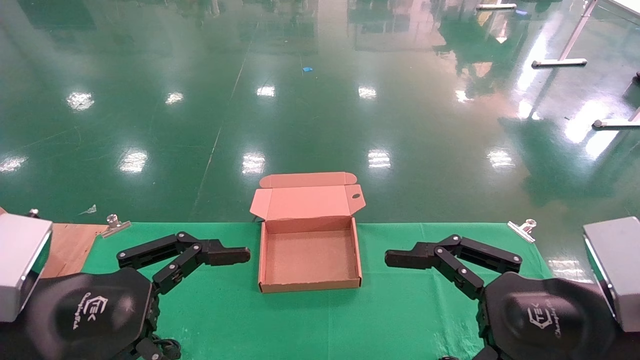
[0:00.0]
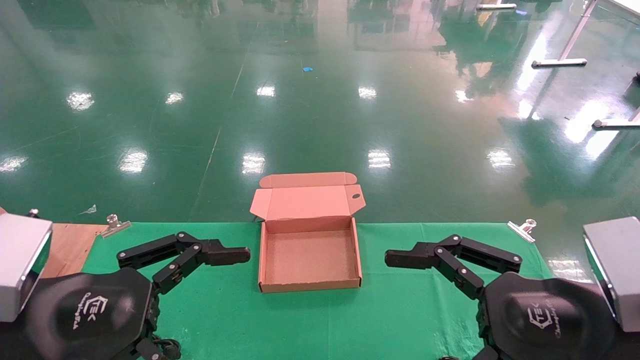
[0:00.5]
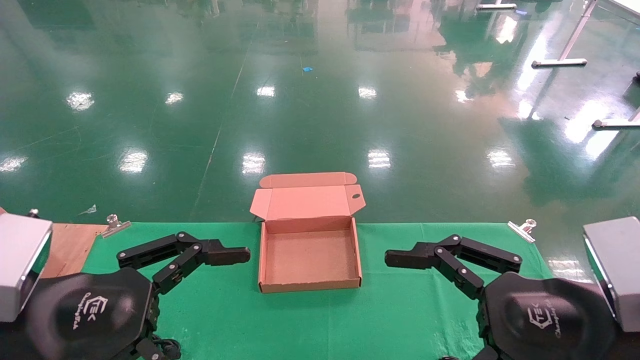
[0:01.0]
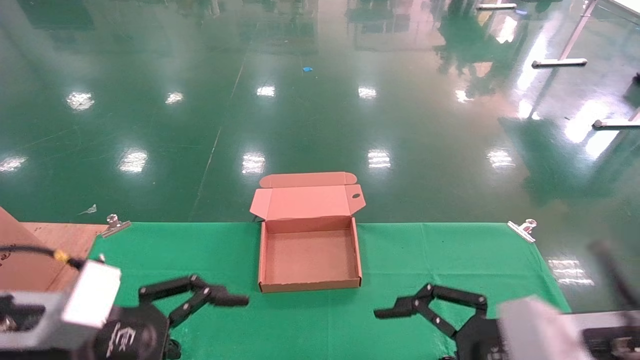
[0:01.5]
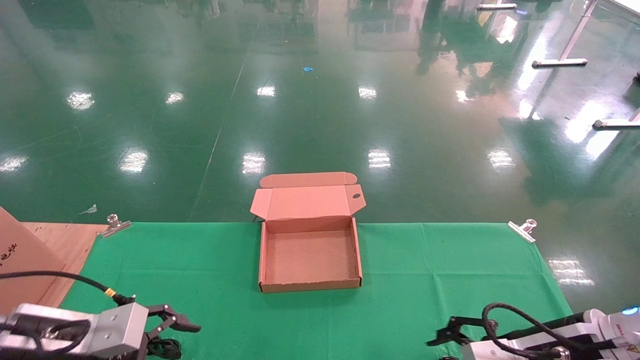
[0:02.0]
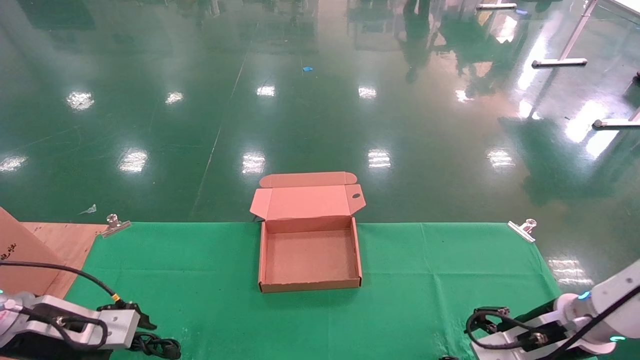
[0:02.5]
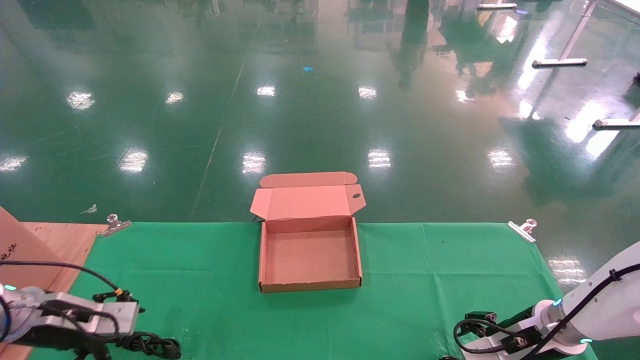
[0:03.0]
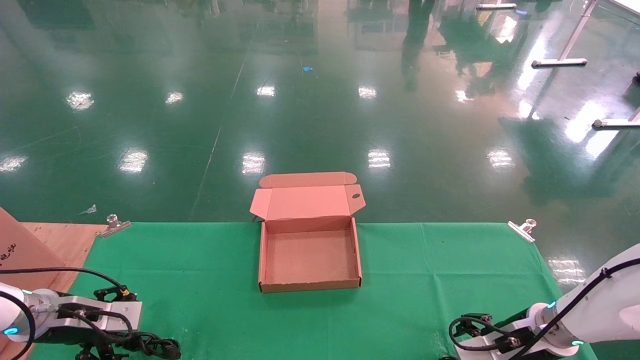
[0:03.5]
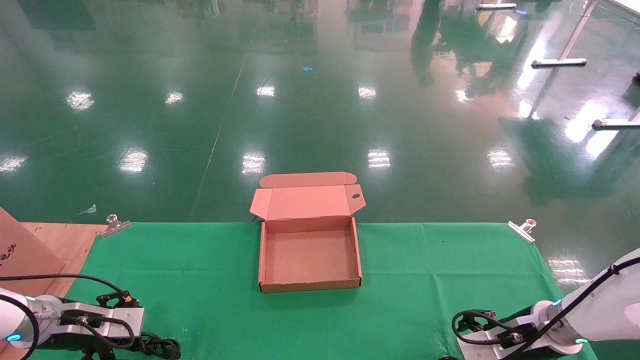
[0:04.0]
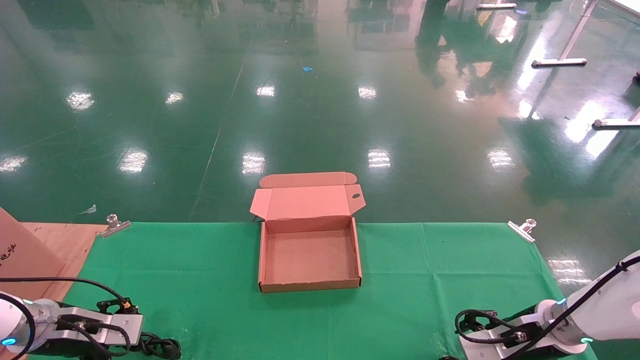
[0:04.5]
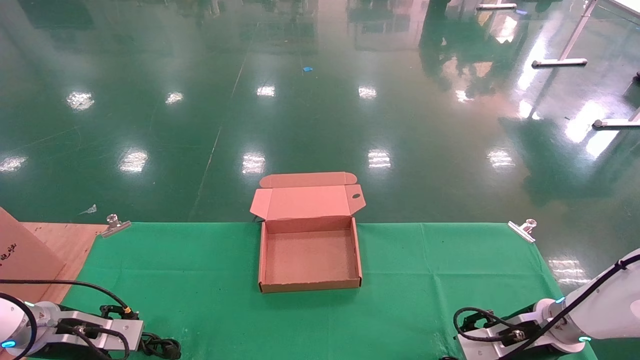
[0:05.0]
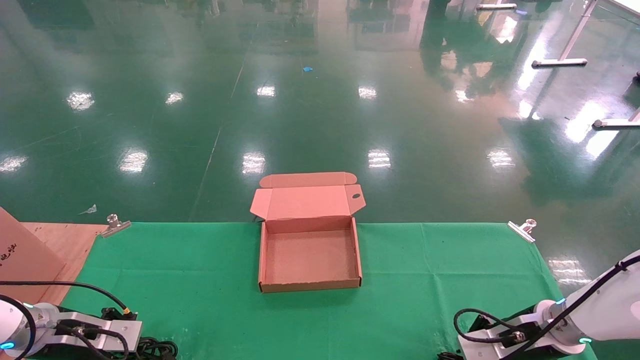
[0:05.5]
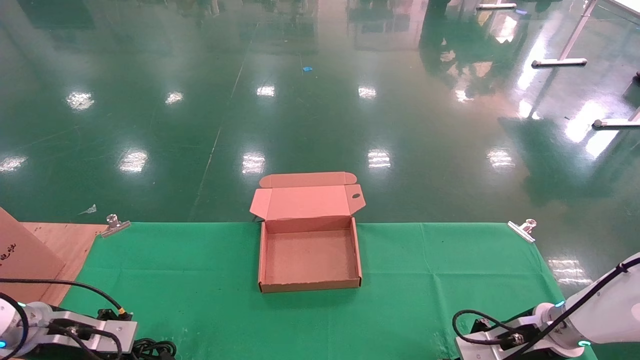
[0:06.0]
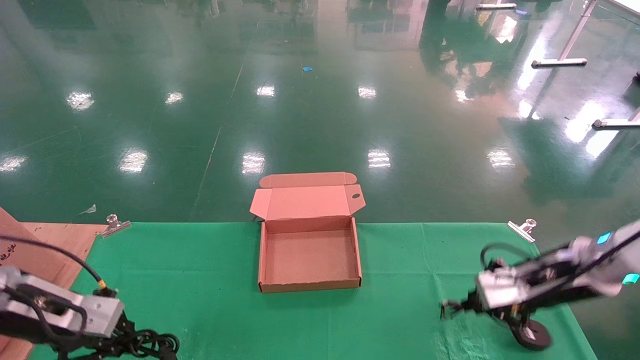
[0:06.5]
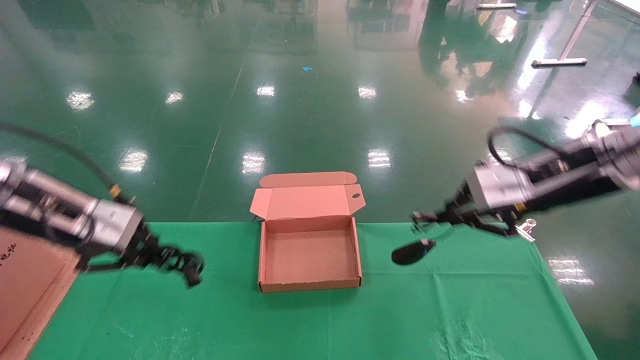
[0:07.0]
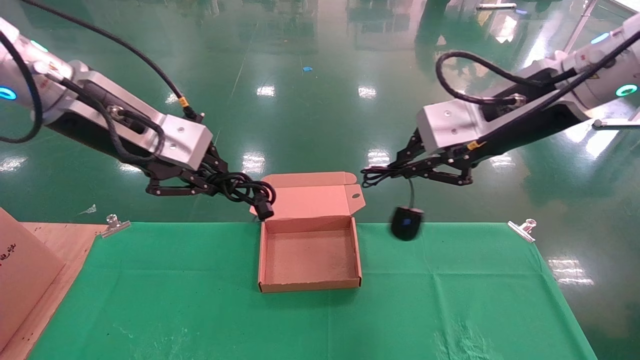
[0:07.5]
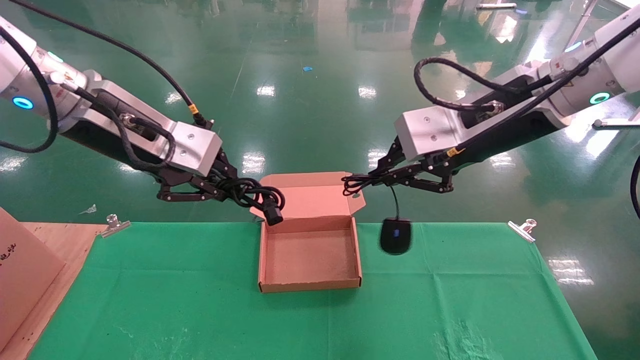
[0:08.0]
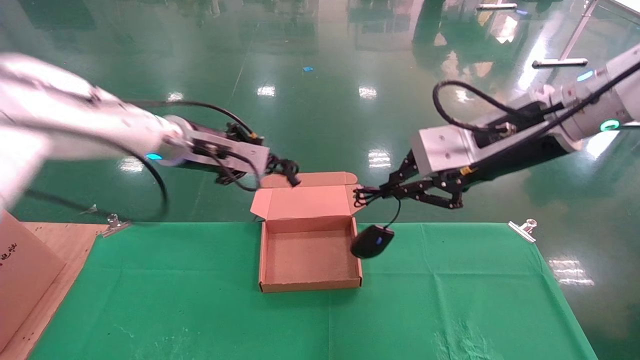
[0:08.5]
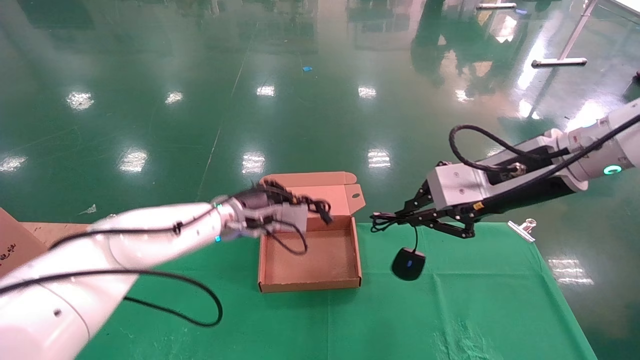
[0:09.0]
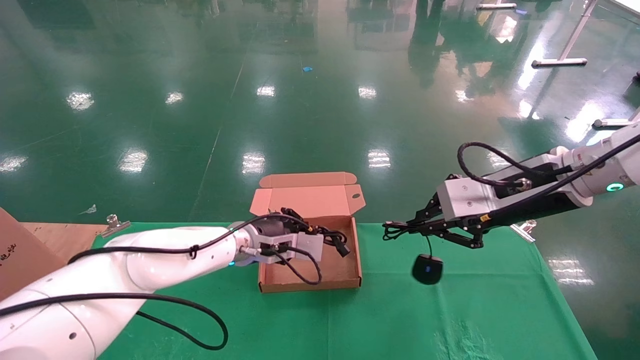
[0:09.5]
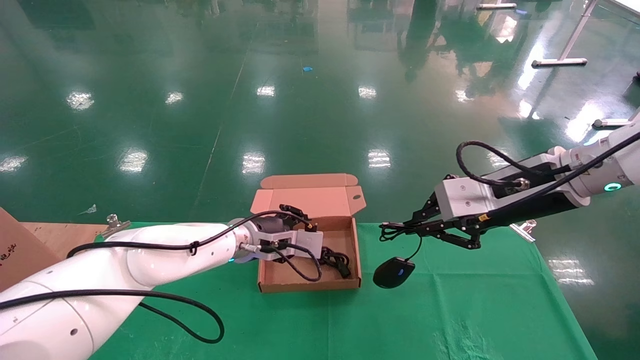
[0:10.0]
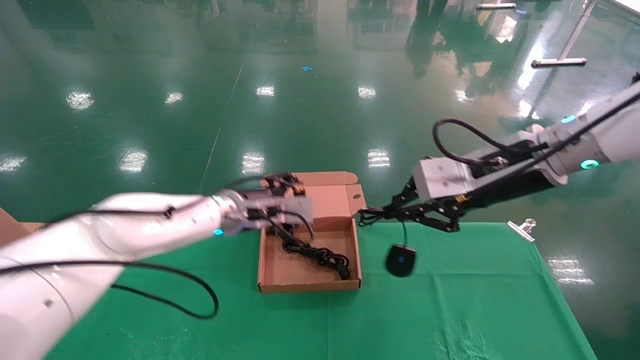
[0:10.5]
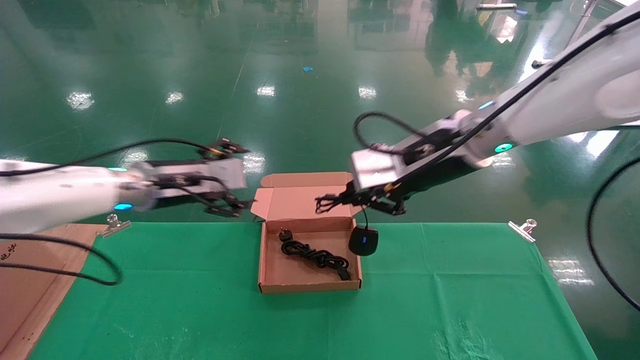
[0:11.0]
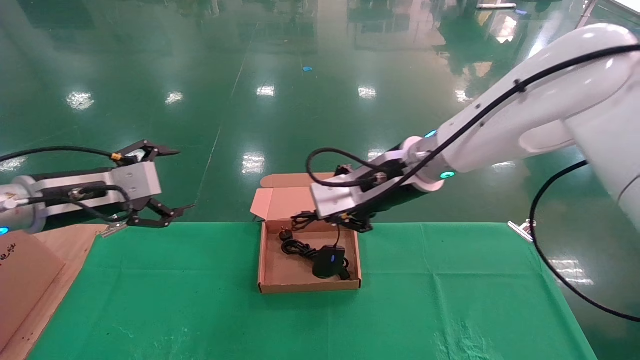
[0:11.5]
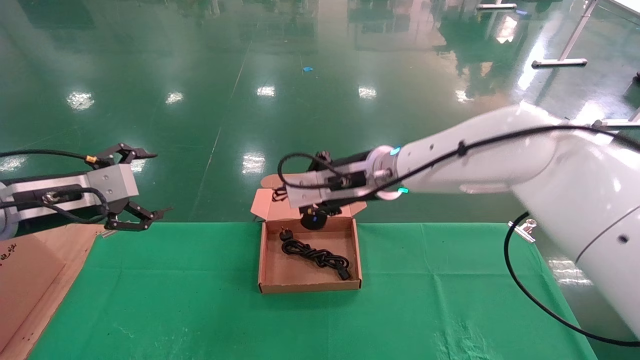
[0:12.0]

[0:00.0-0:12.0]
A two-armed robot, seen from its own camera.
Step, 0:02.0 to 0:06.0: Grab and lift both the mouse and power cord from the accessory packaging area at the same time.
0:00.0 to 0:02.0: The left gripper heads forward, downward and to the left, covering about 15 cm, while the right gripper heads forward and downward, covering about 15 cm.
0:02.0 to 0:04.0: The right gripper shifts about 15 cm forward and downward; the left gripper is displaced forward, to the left and downward by approximately 15 cm.
0:04.0 to 0:06.0: The left gripper closes its fingers; the right gripper closes up.
0:06.0 to 0:08.0: The left gripper travels upward and to the right by some 35 cm, while the right gripper heads upward, covering some 30 cm.
0:08.0 to 0:10.0: The left gripper moves downward, forward and to the right, about 30 cm. The right gripper moves downward and to the right, roughly 10 cm.
0:10.0 to 0:12.0: The left gripper shifts some 30 cm to the left and backward, and opens its fingers, while the right gripper is displaced to the left by roughly 20 cm.

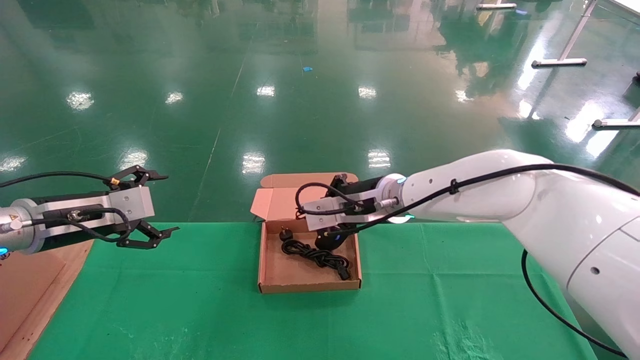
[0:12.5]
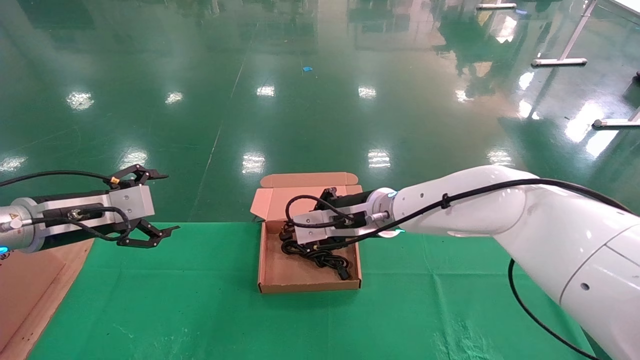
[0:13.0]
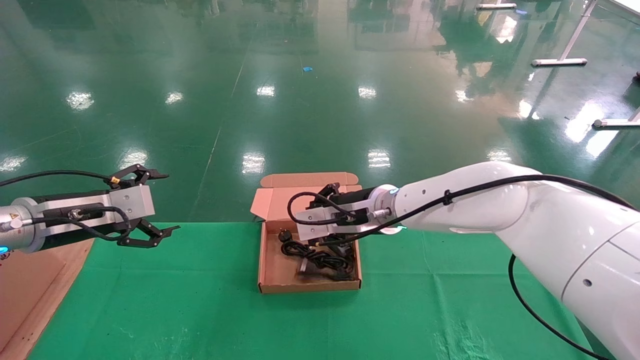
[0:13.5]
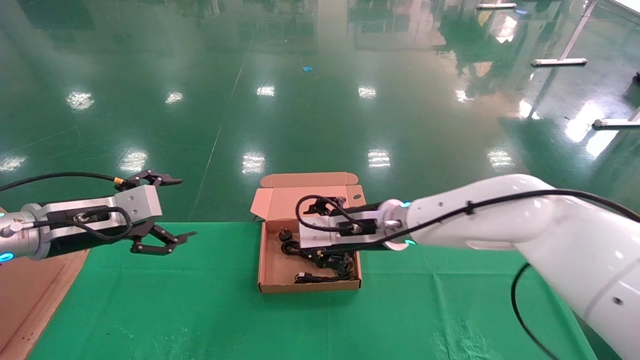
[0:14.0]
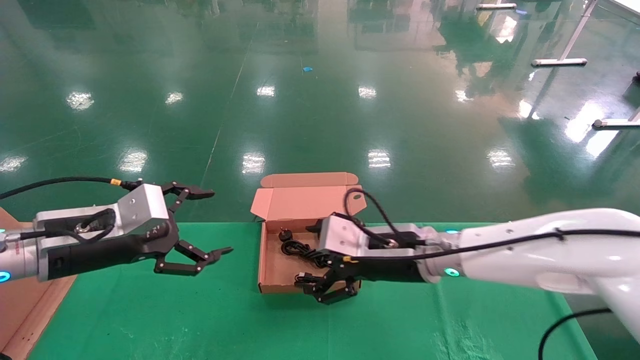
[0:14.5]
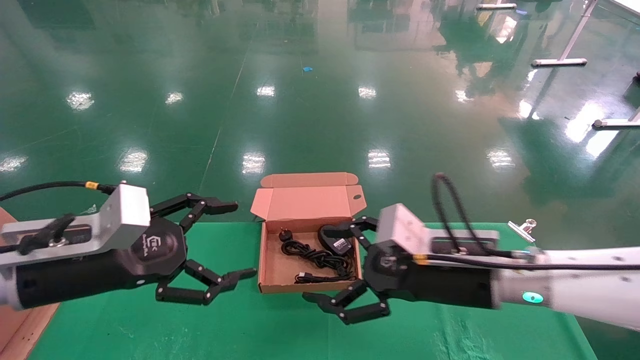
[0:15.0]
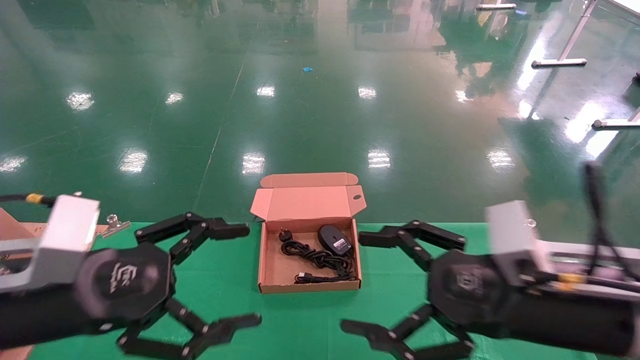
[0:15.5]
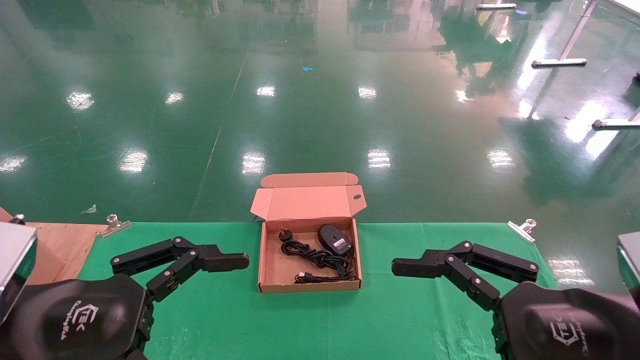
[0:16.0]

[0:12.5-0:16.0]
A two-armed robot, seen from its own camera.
0:12.5 to 0:14.5: The right gripper travels backward and downward by some 10 cm, and opens; the left gripper moves to the right and backward, some 10 cm.
0:14.5 to 0:16.0: The right gripper is displaced backward and to the right by some 25 cm. Meanwhile the left gripper is displaced backward by some 15 cm.
